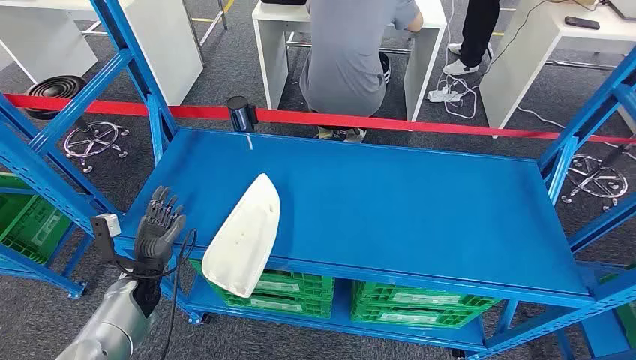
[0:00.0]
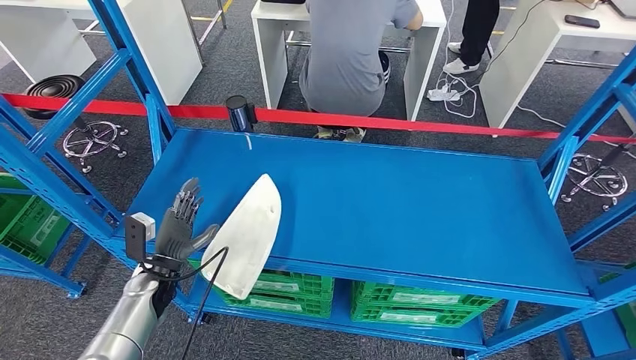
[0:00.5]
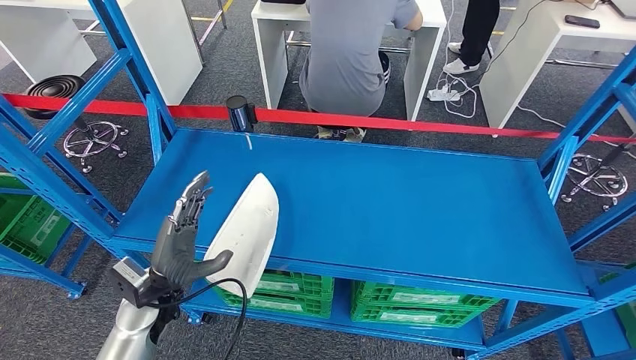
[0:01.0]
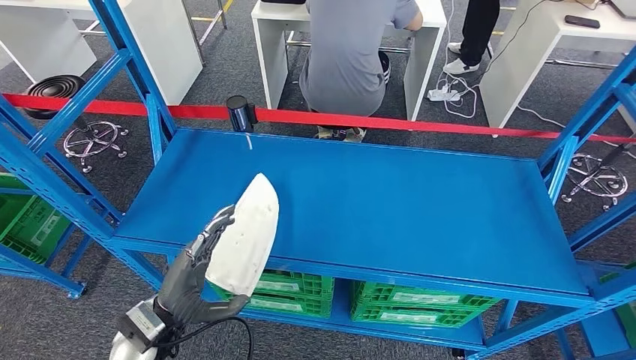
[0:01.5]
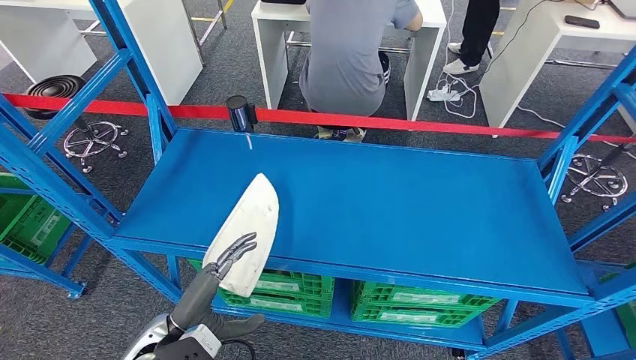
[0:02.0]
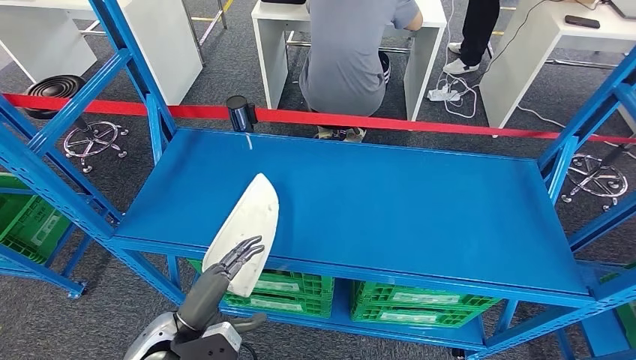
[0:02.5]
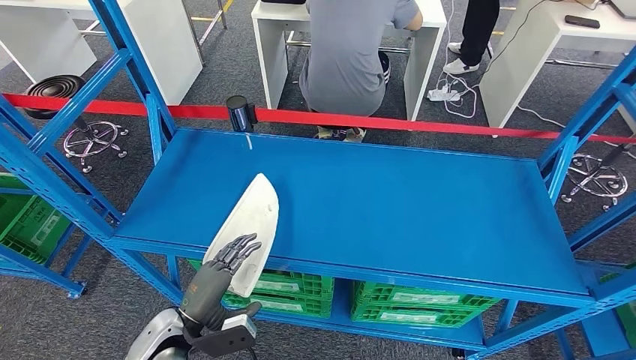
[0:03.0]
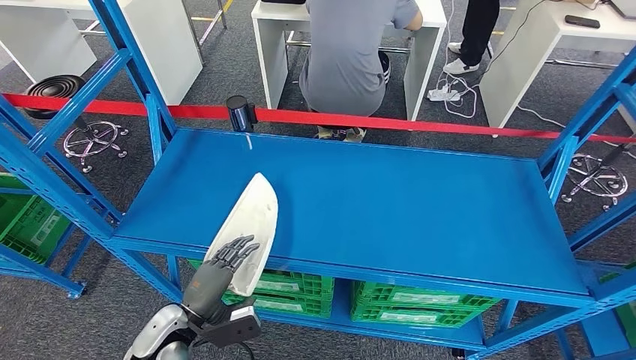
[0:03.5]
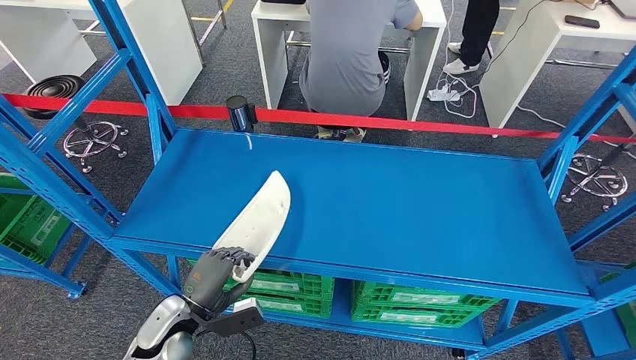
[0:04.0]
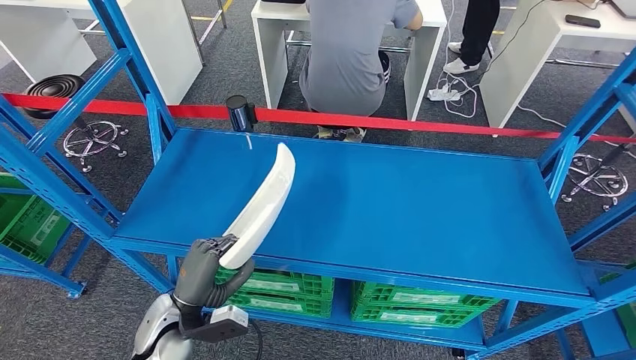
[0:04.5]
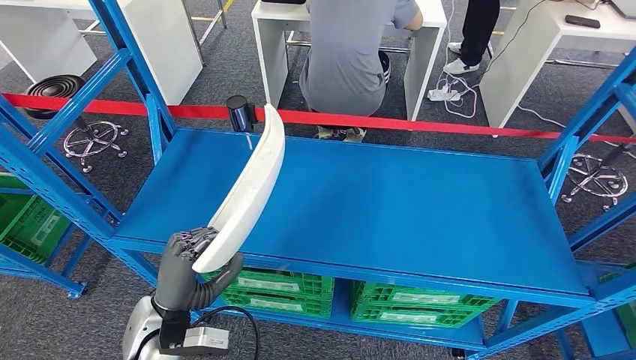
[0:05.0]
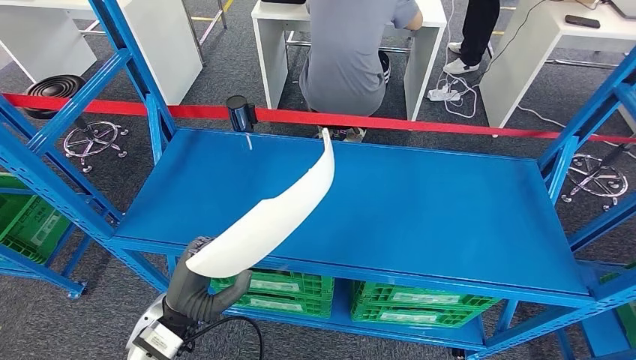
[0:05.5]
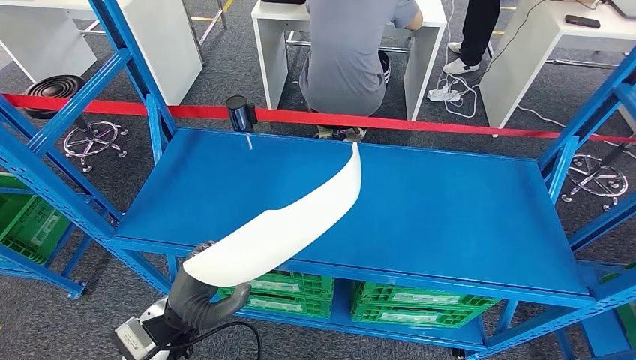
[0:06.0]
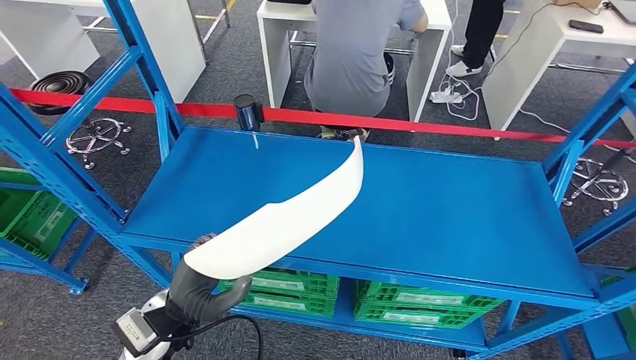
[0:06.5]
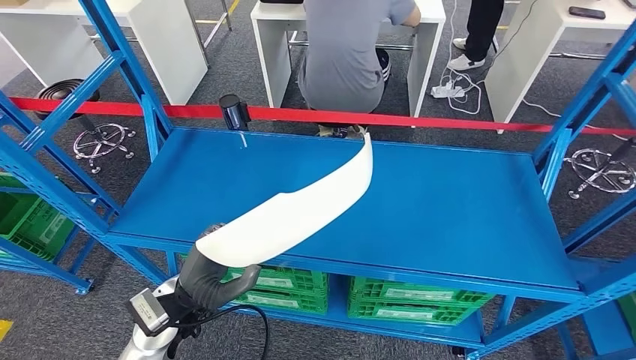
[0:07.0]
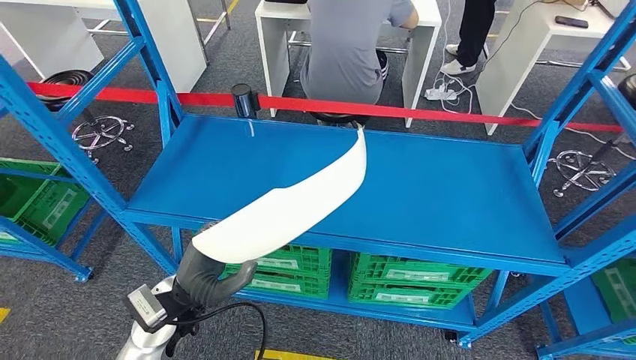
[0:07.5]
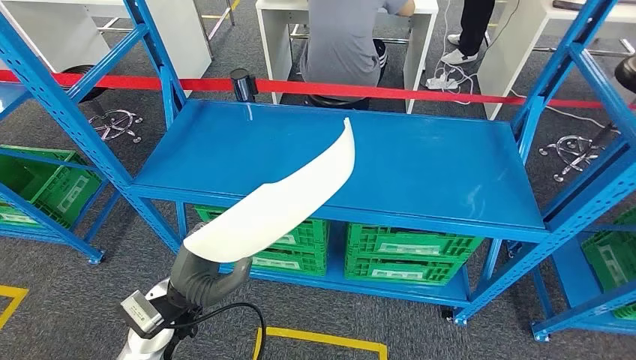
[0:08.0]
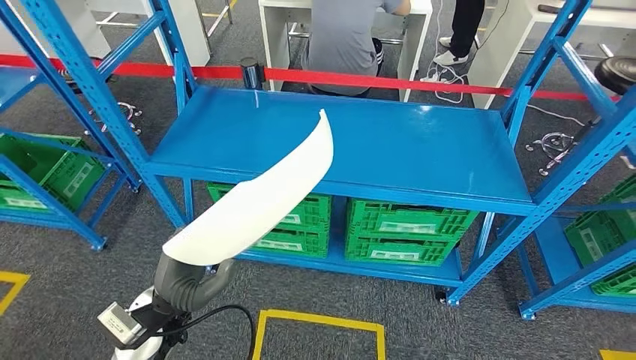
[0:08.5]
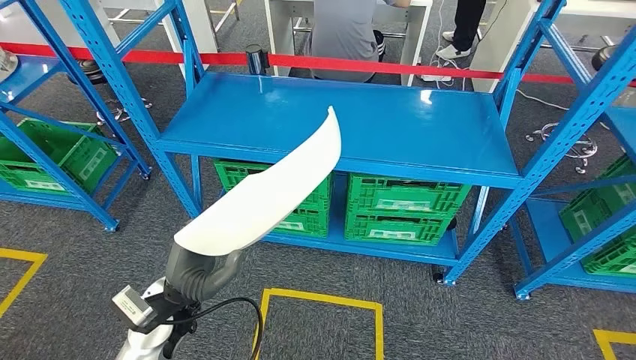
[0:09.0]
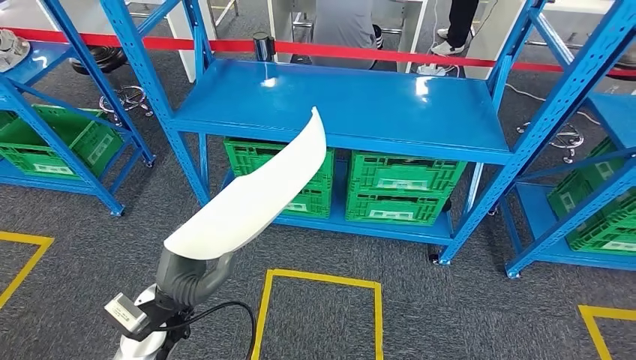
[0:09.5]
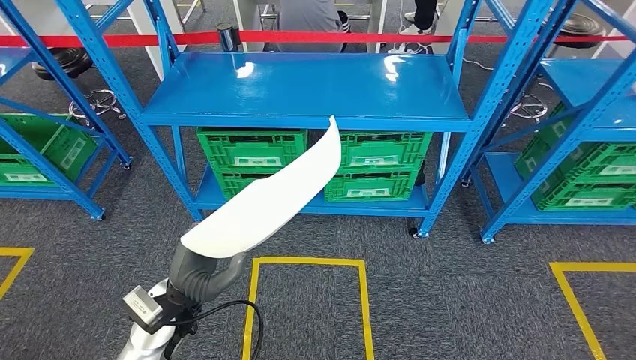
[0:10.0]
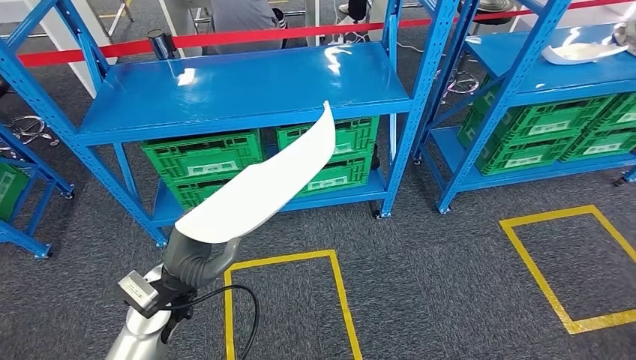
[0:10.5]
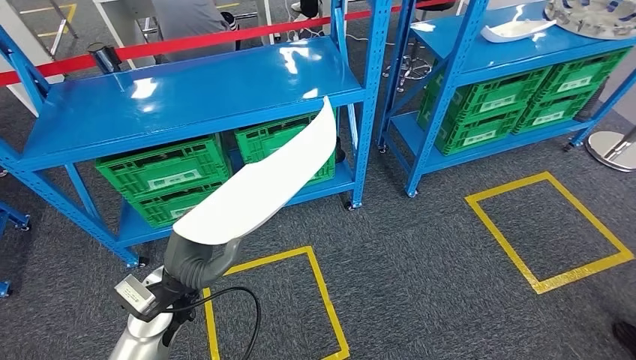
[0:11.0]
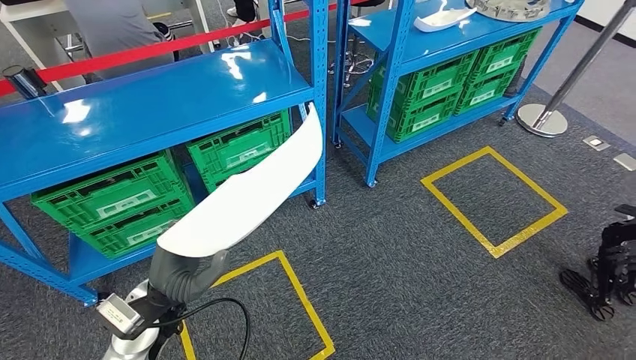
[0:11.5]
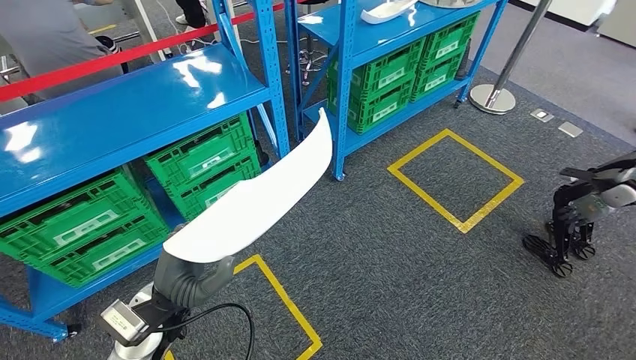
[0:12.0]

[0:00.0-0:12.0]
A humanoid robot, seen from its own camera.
Step, 0:00.0 to 0:07.5: Pick up the small component from the shelf.
0:02.0 to 0:04.0: The left hand shifts some 5 cm downward.
0:04.0 to 0:06.0: The left hand shifts approximately 10 cm upward.

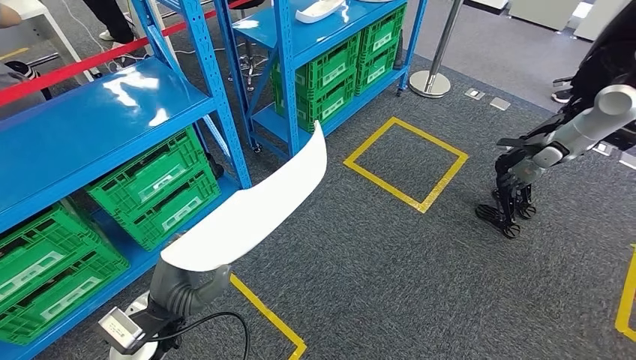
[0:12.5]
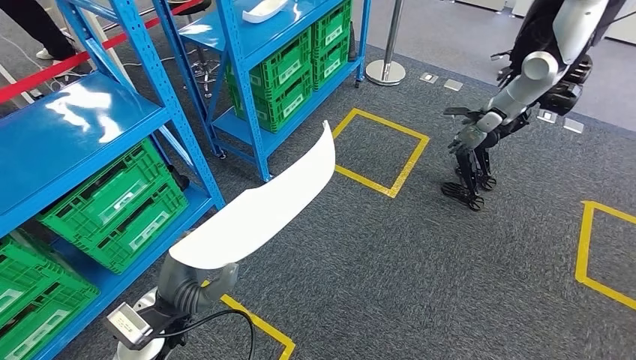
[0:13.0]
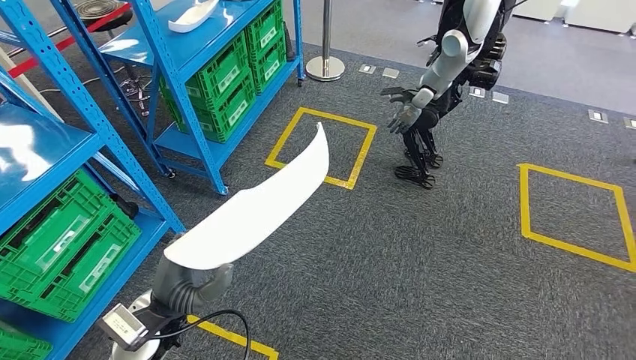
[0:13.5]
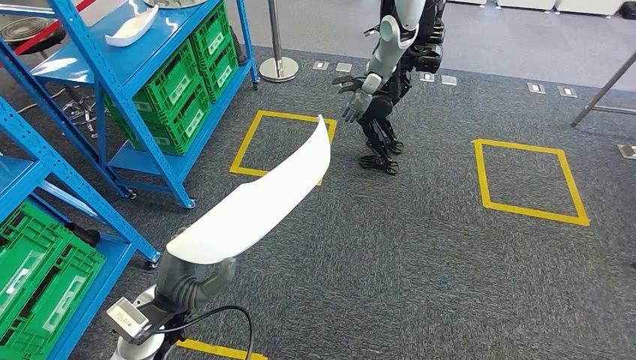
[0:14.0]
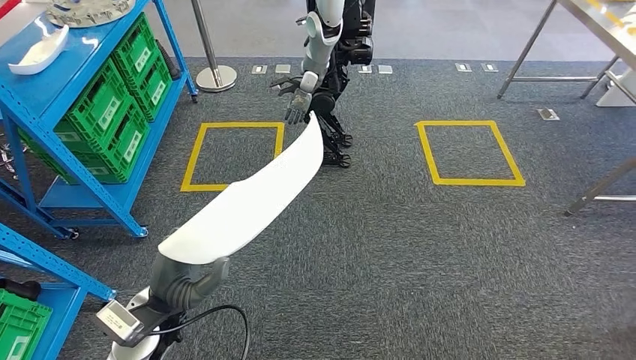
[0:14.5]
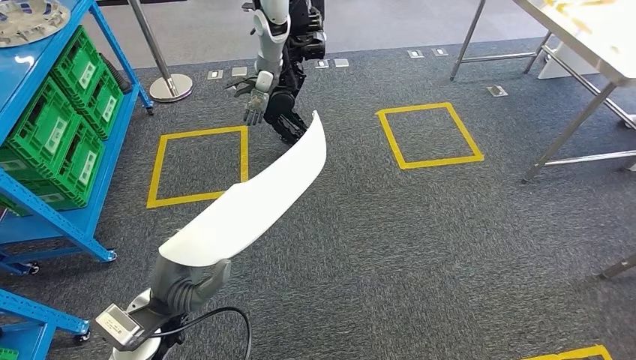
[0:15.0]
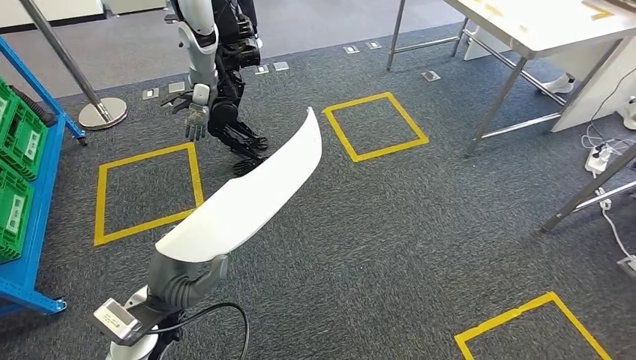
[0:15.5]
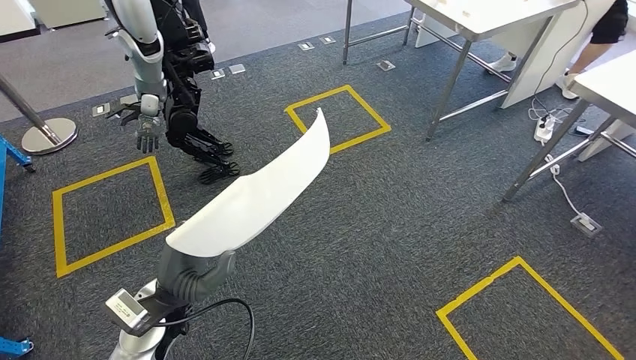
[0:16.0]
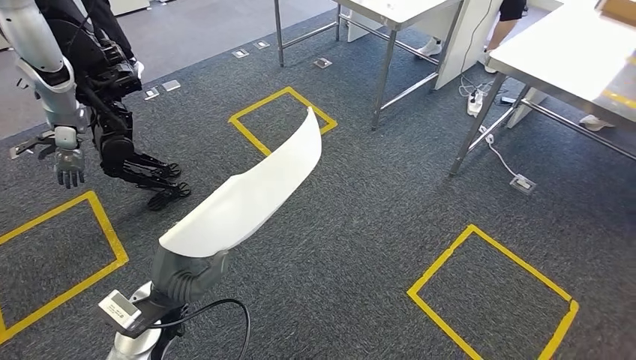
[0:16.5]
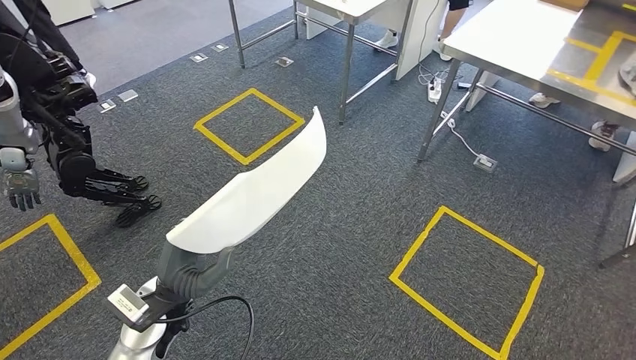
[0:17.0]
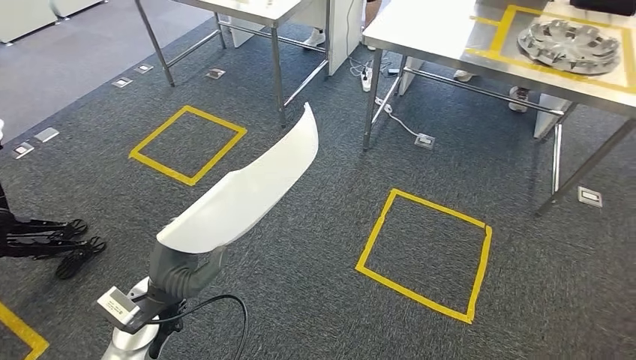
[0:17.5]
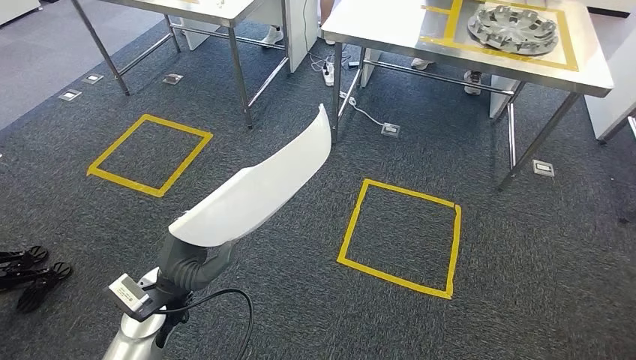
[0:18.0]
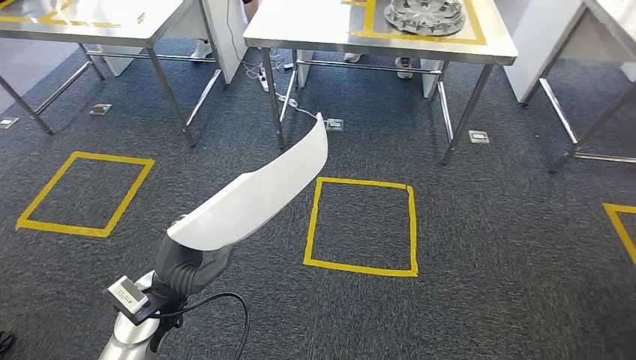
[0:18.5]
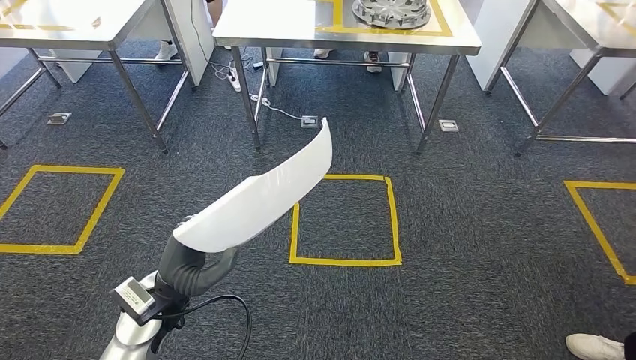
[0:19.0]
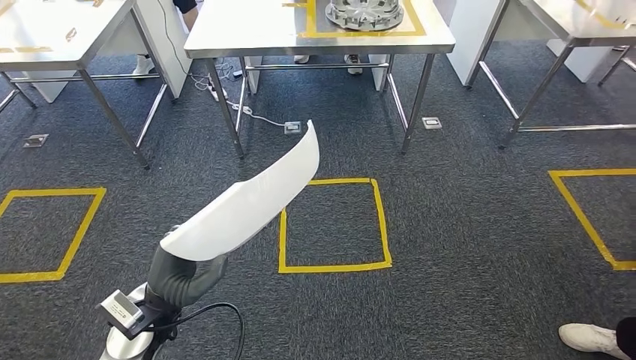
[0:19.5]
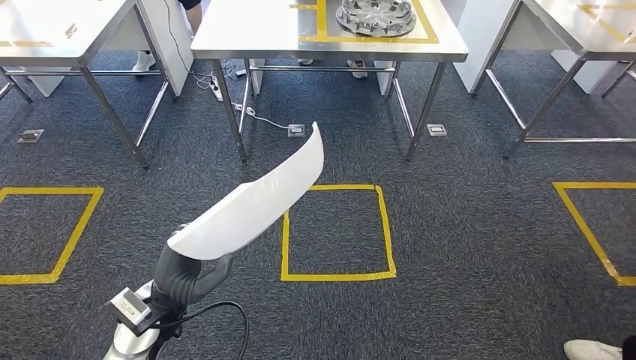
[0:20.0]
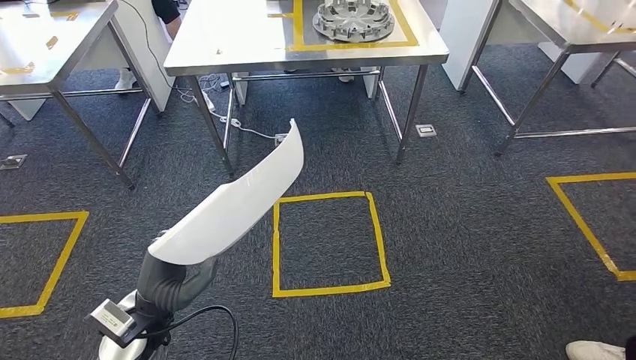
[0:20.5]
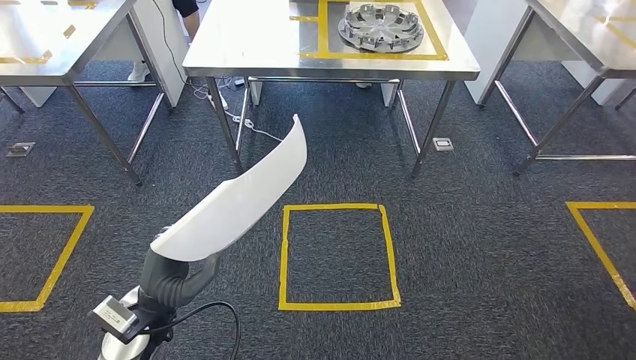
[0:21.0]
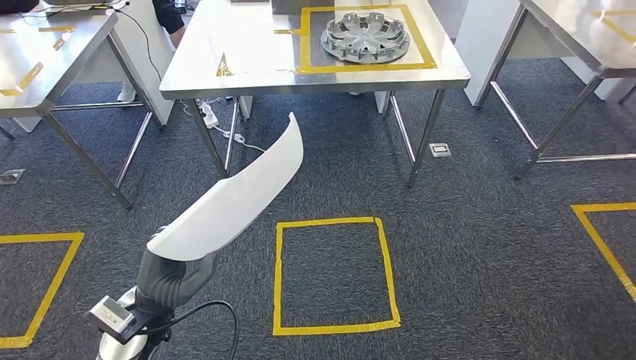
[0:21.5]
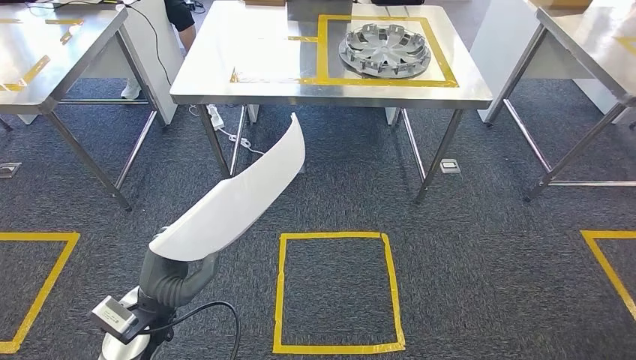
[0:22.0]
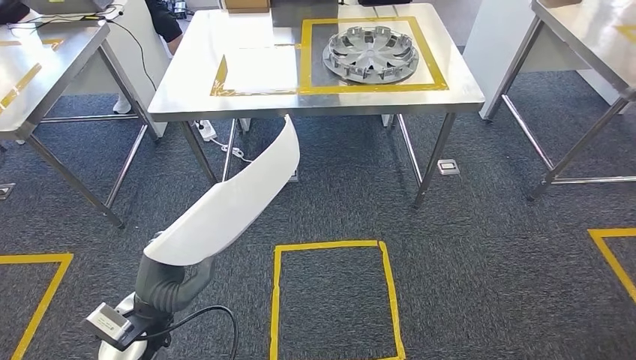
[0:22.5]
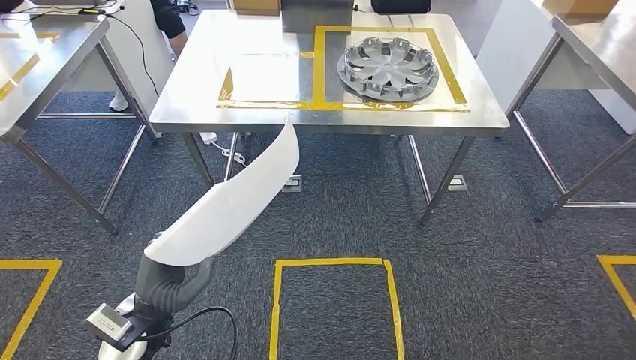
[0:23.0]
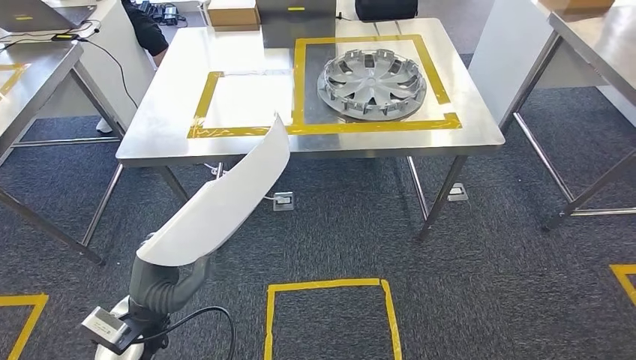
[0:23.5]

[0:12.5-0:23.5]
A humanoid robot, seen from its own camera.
Step, 0:12.5 to 0:23.0: Bring the small component to the front of the workbench.
